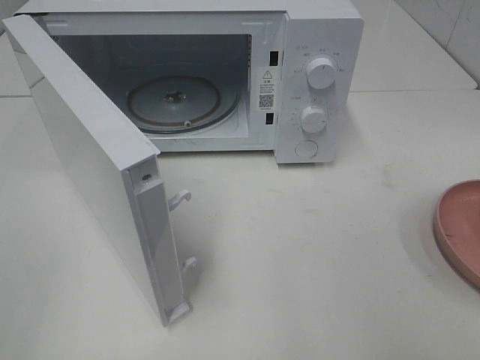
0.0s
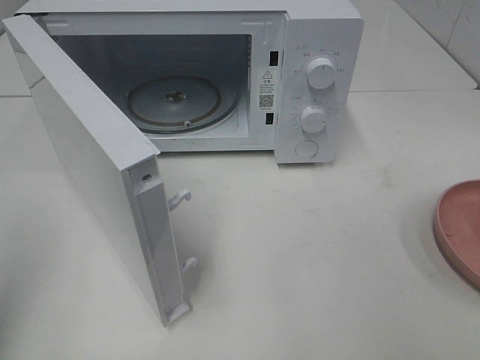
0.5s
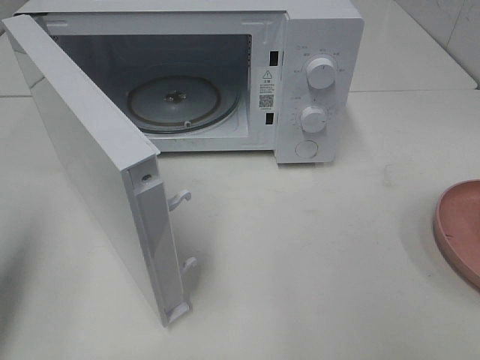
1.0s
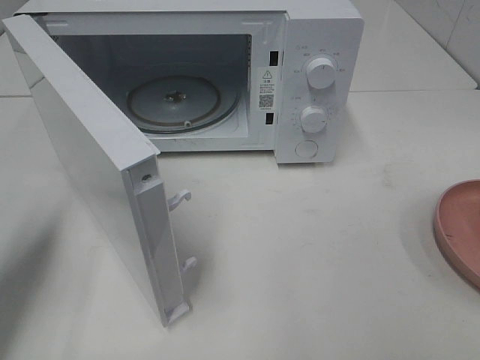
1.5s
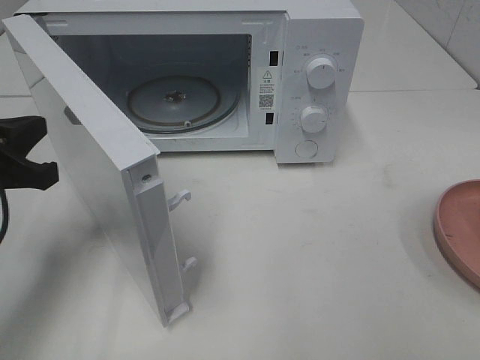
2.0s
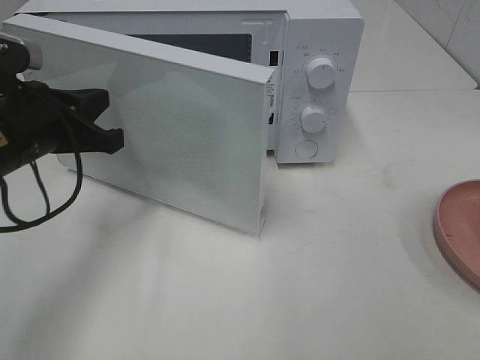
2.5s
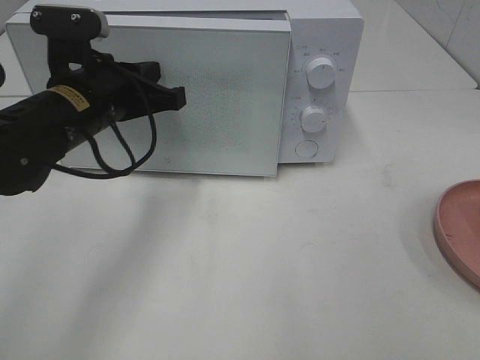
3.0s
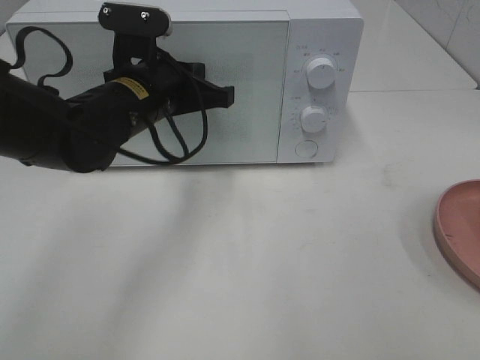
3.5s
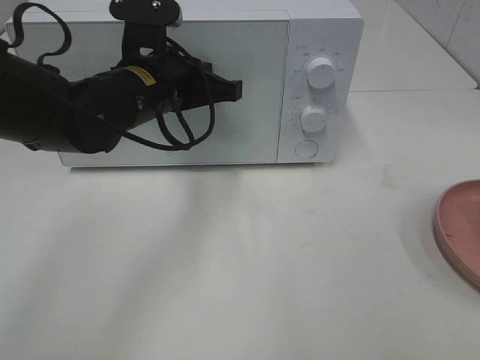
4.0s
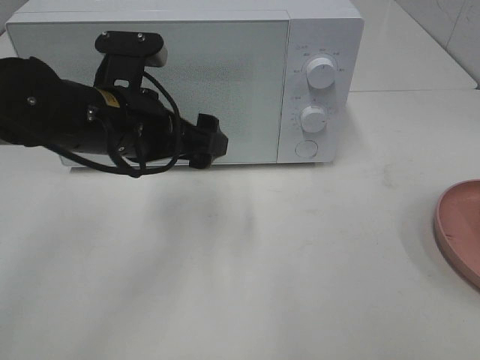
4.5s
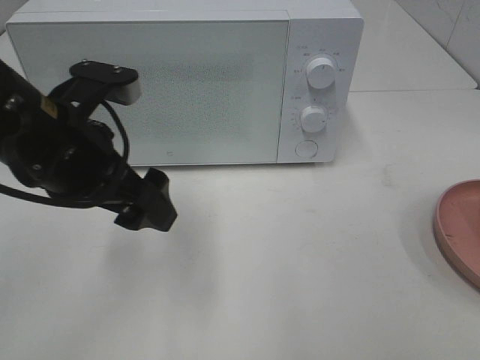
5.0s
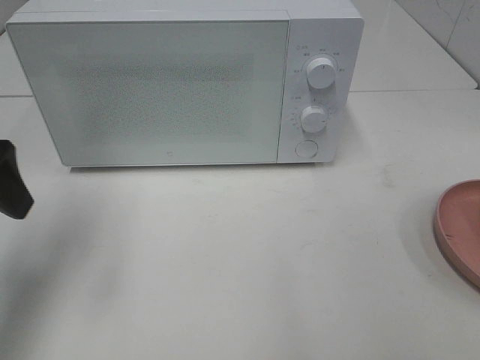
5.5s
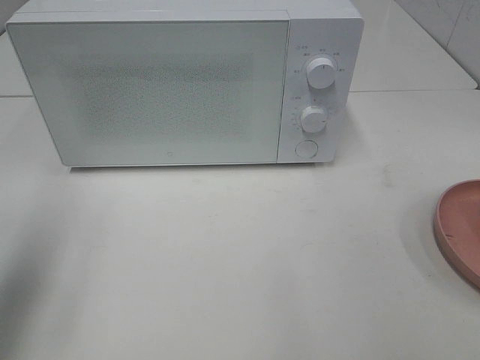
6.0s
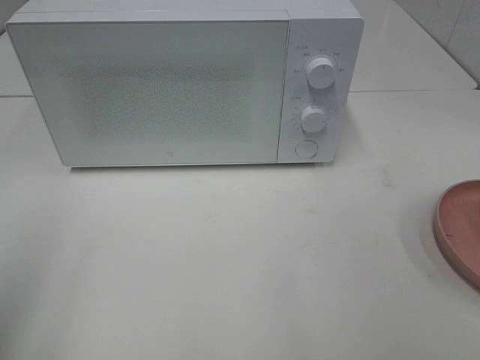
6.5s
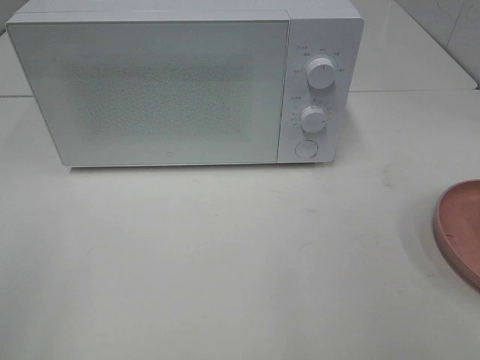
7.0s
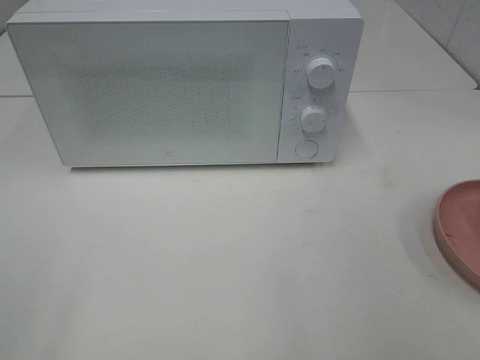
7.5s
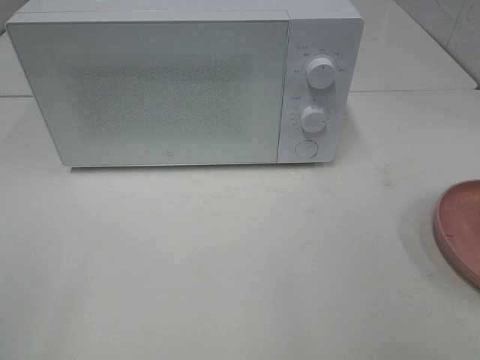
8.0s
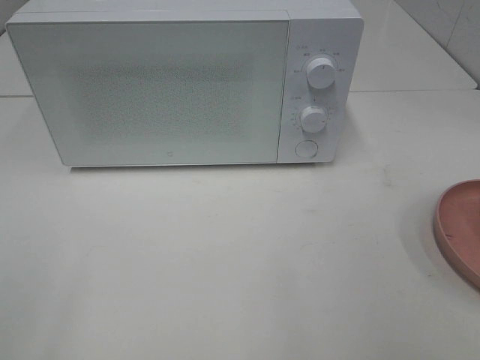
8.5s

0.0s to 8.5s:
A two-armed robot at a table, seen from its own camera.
Task of the whole recording: Heat the burger.
Step, 0.0s to 4.5s: Left hand: close the microwave door.
0.0s to 2.0s: The left gripper goes about 25 cm forward and downward, and closes.
2.0s to 4.0s: The left gripper travels to the right and forward by roughly 20 cm.
4.0s to 6.5s: The left gripper goes roughly 35 cm backward and to the left, and opens up.

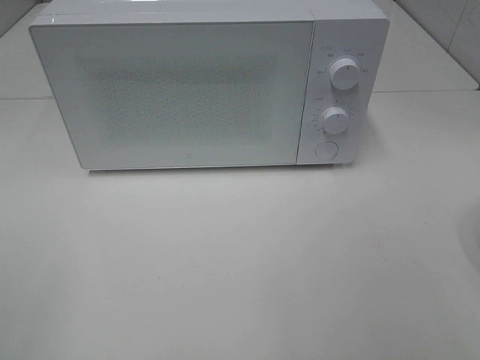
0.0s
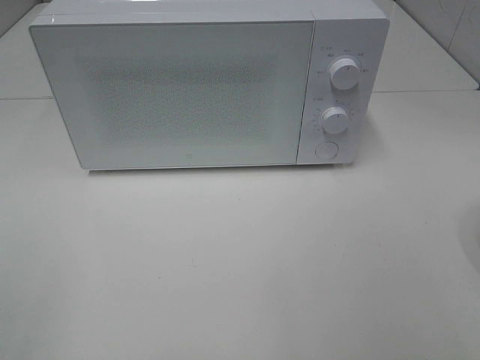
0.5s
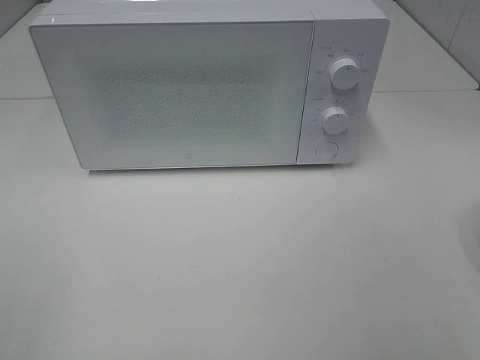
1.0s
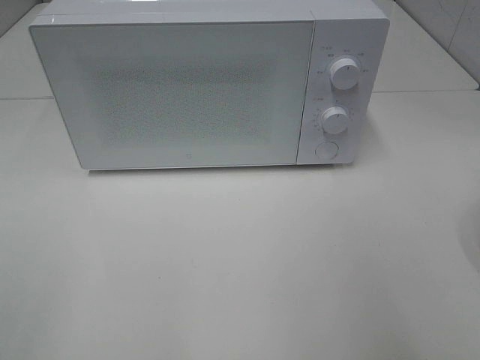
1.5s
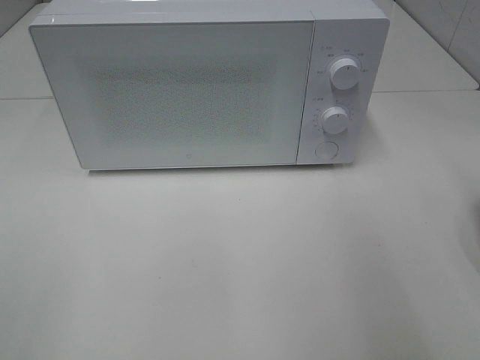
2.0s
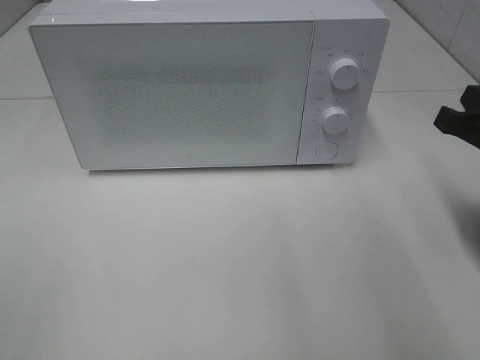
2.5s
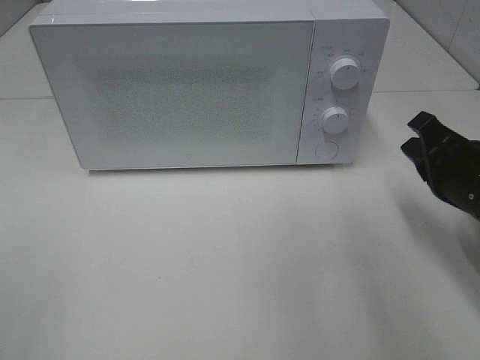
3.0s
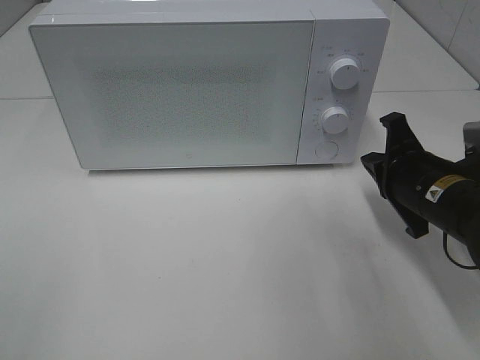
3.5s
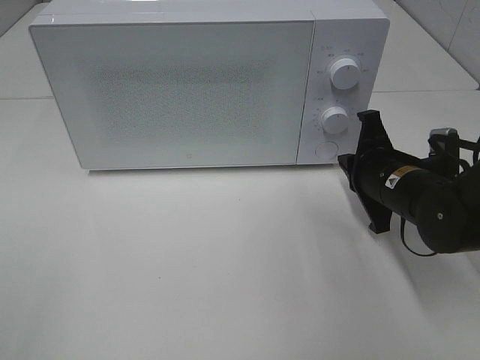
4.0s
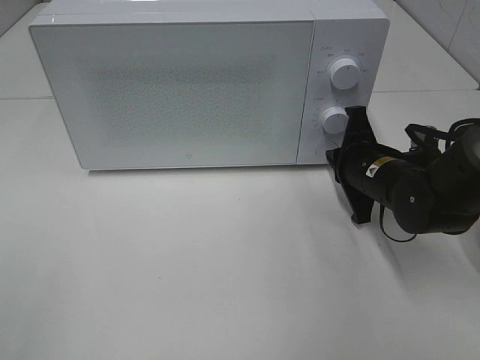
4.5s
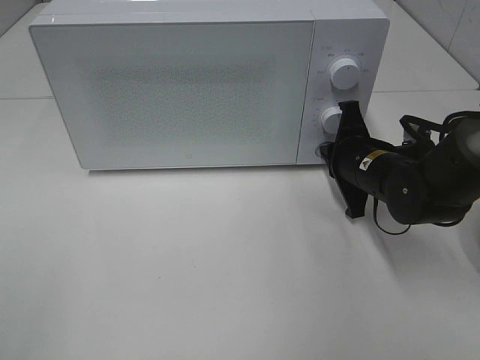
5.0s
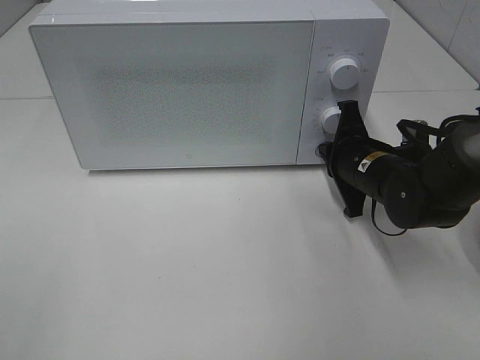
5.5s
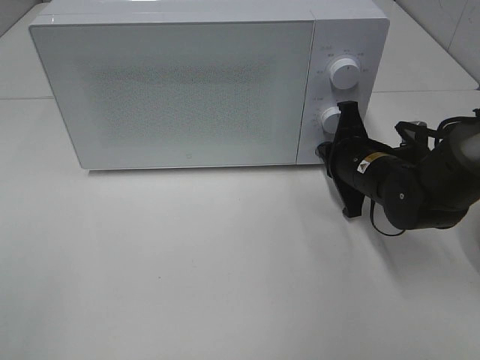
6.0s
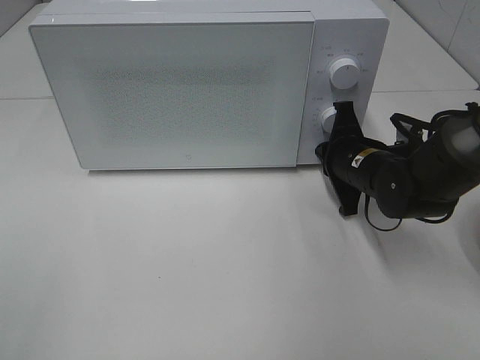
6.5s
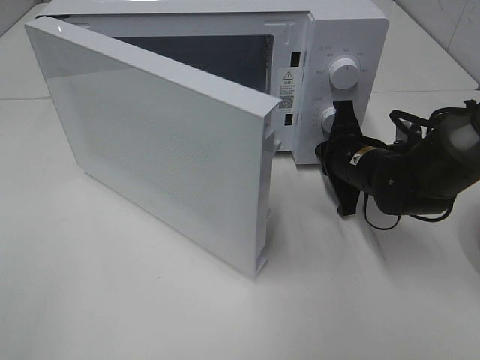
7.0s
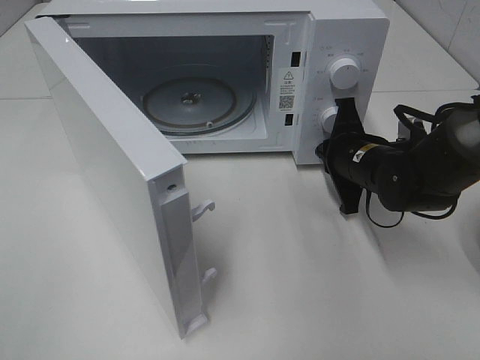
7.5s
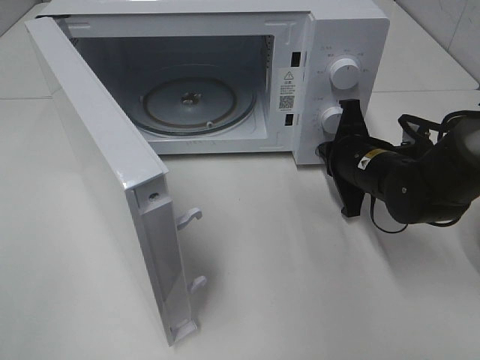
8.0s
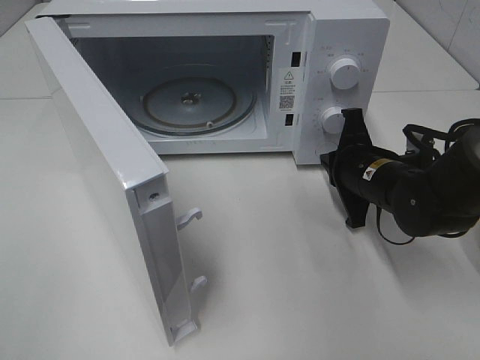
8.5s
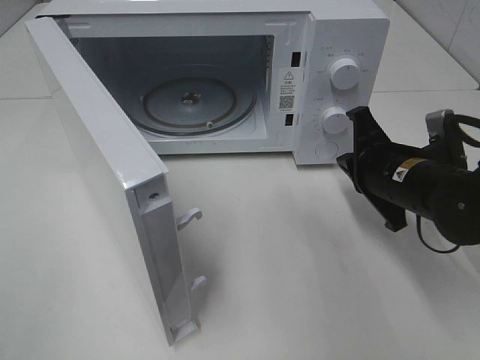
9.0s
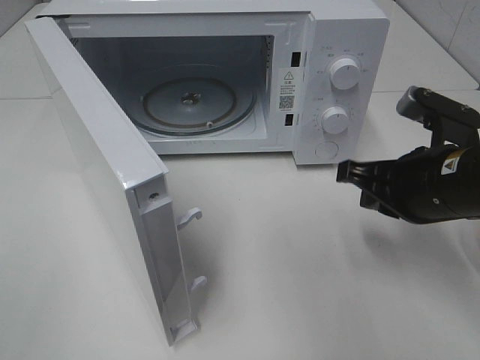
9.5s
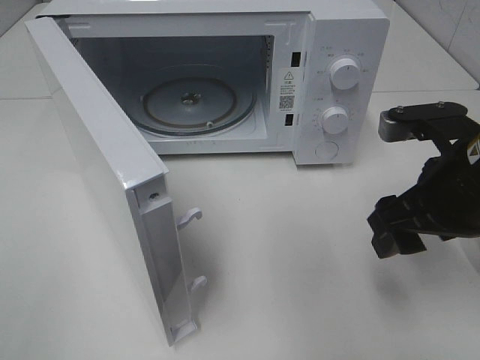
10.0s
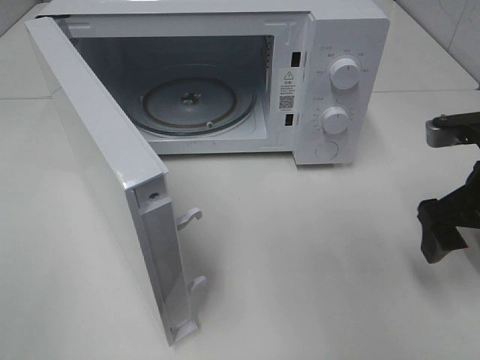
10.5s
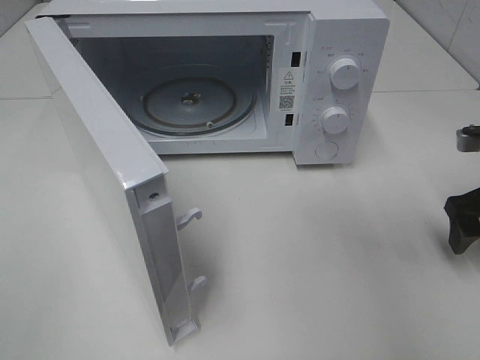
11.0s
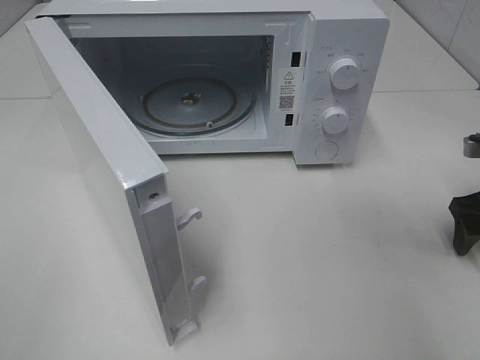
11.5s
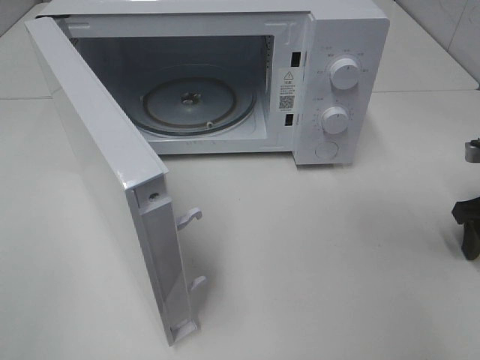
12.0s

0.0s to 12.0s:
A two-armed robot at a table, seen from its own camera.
Task of the whole recording: Heat the burger.
Step, 0.0s to 8.0s: Right hand: press the switch.
2.0s to 4.0s: The right gripper shifts some 25 cm downward, forward and to the left.
4.0s to 6.0s: There are only small adjustments of the grippers.
8.0s to 10.0s: The right gripper is displaced backward and upward by some 15 cm, and opens its fingers.
10.0s to 12.0s: The right gripper goes roughly 20 cm to the right, downward and forward.

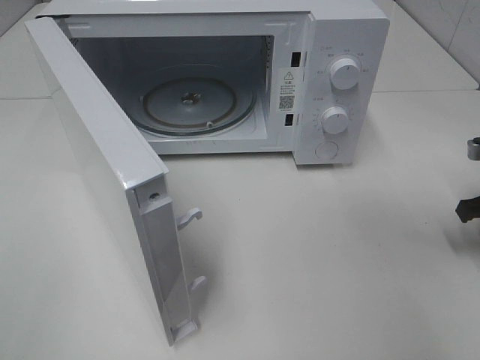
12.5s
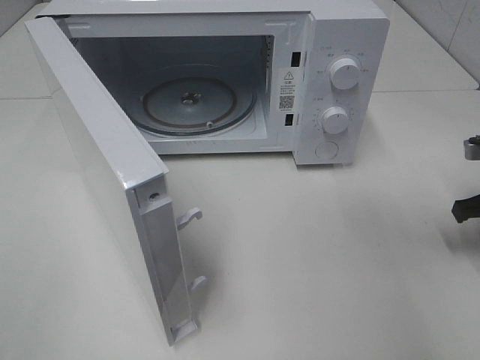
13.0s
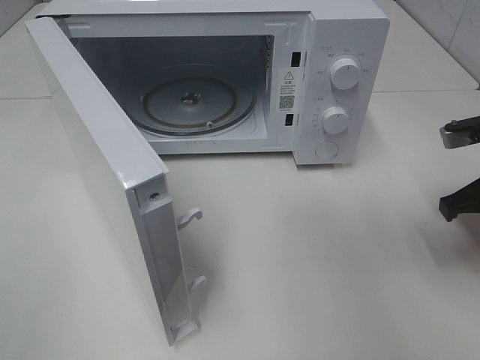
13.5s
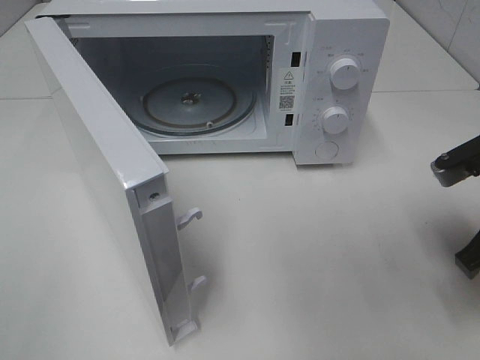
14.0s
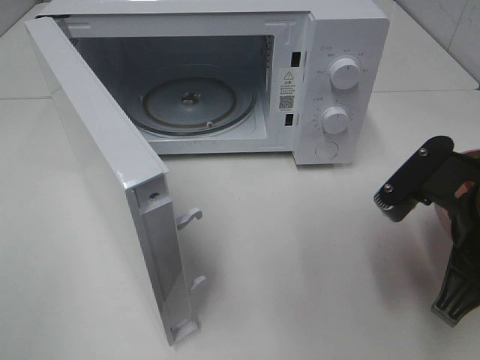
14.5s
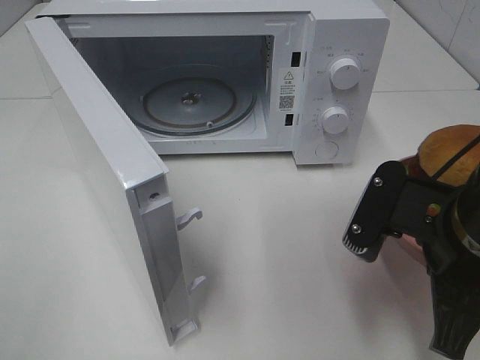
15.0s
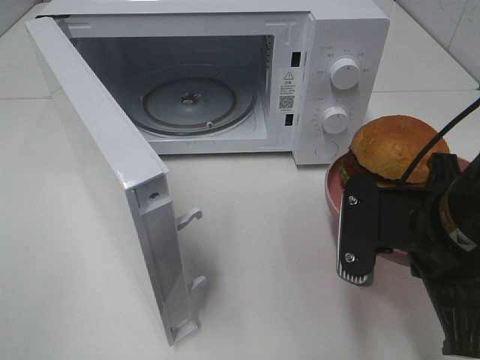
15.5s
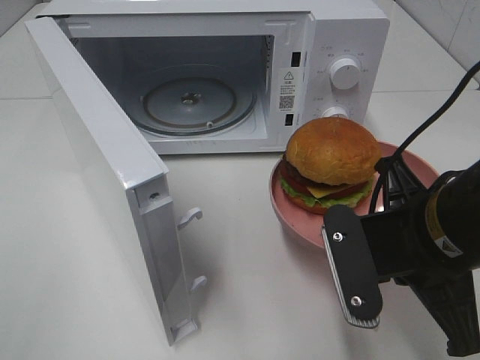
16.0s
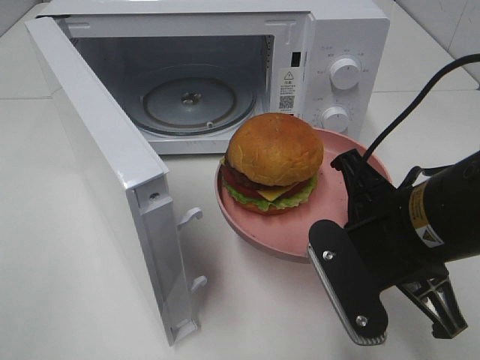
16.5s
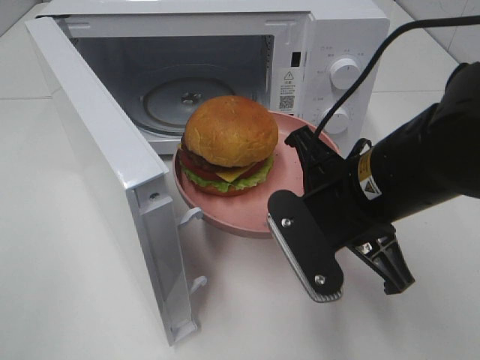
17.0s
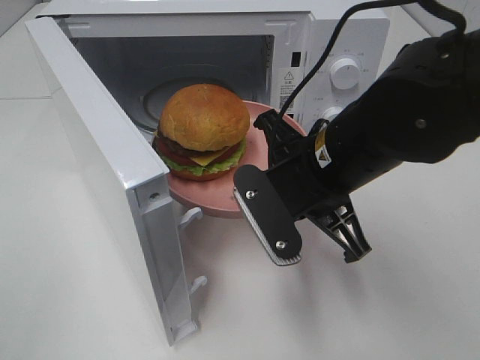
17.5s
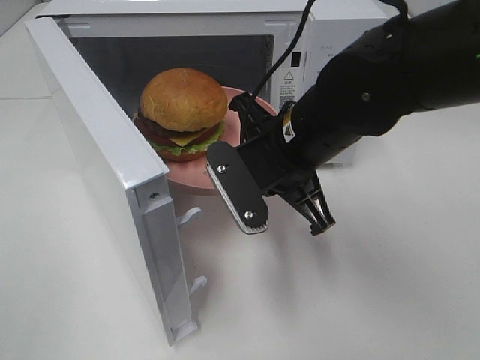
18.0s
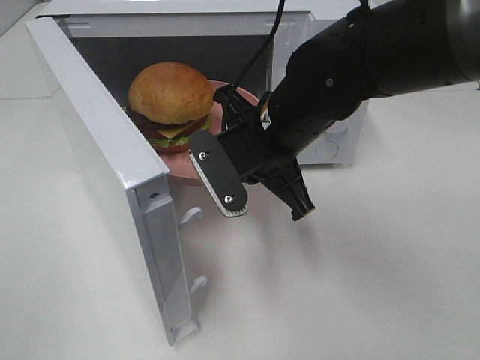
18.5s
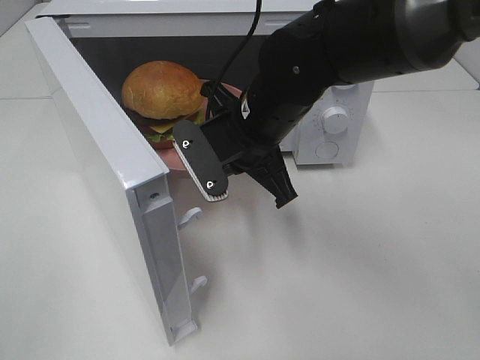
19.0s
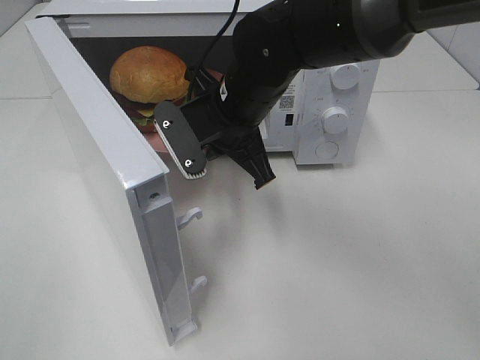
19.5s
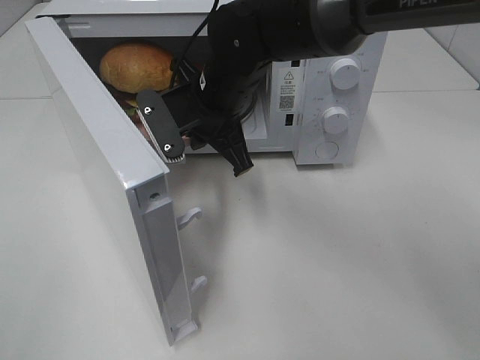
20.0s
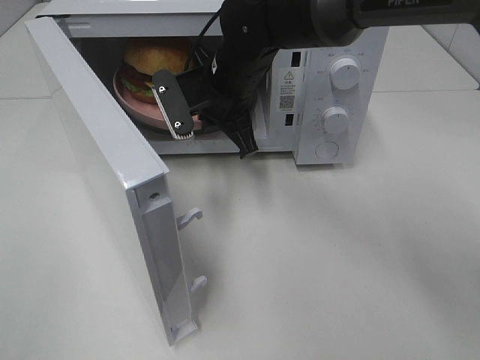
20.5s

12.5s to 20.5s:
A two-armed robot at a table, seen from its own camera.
Task of the whole recording: Heat the burger.
12.5s to 14.5s: The right gripper goes roughly 20 cm to the left, backward and upward.
14.5s to 16.5s: The right gripper shifts some 5 cm to the left.
16.5s to 18.5s: The right gripper moves forward and to the left, roughly 15 cm.
18.5s to 20.5s: The right gripper travels forward by approximately 10 cm.
